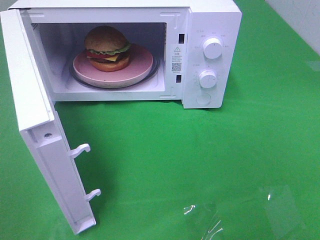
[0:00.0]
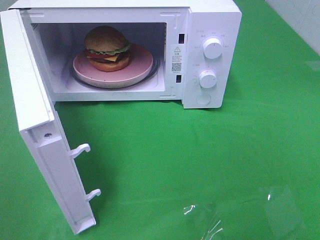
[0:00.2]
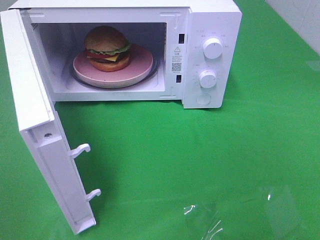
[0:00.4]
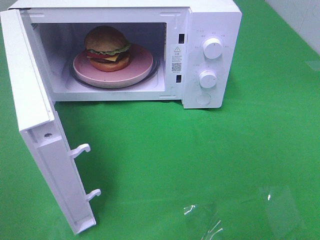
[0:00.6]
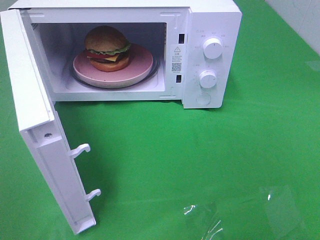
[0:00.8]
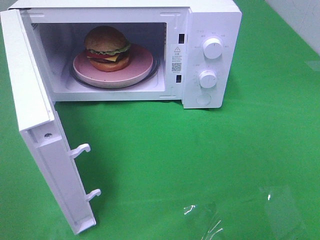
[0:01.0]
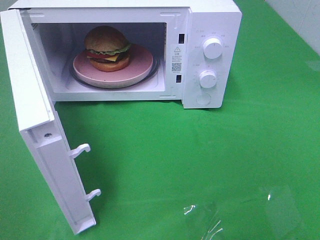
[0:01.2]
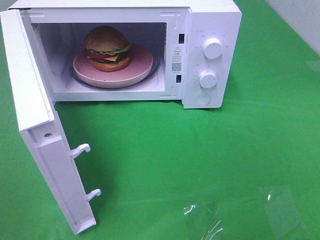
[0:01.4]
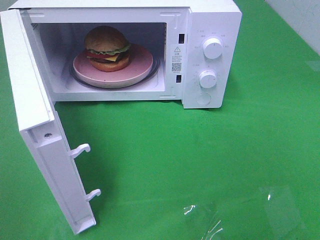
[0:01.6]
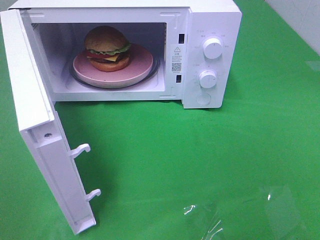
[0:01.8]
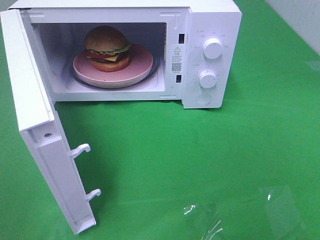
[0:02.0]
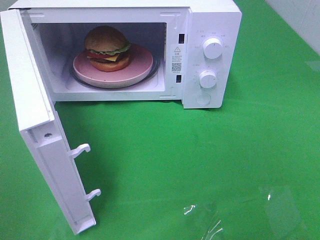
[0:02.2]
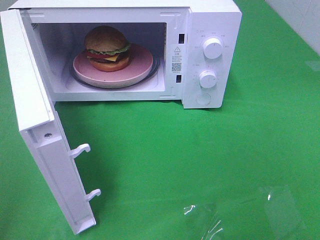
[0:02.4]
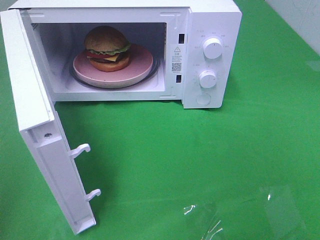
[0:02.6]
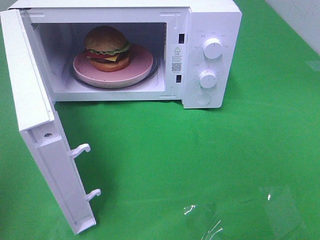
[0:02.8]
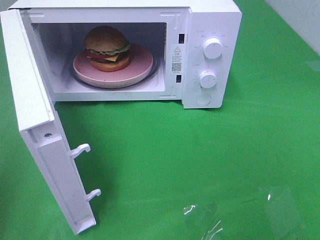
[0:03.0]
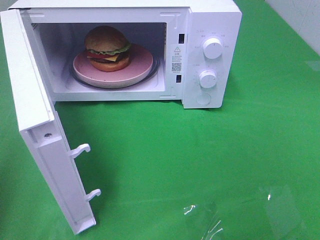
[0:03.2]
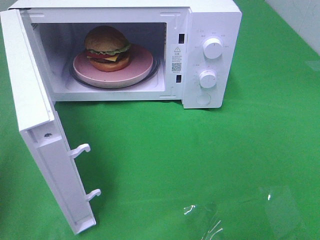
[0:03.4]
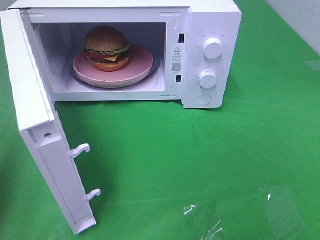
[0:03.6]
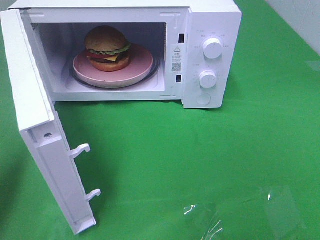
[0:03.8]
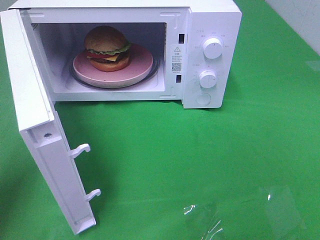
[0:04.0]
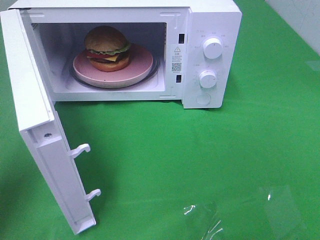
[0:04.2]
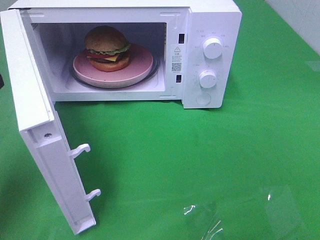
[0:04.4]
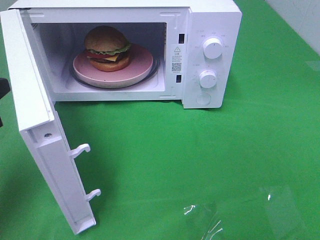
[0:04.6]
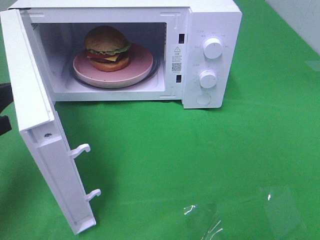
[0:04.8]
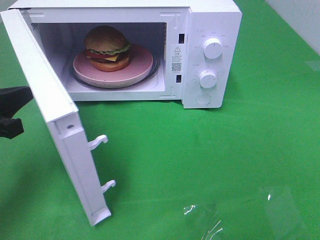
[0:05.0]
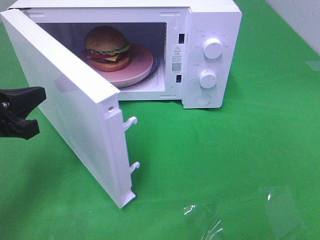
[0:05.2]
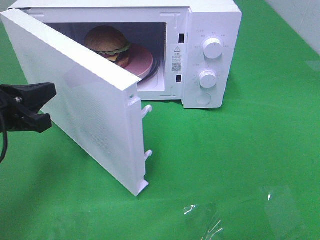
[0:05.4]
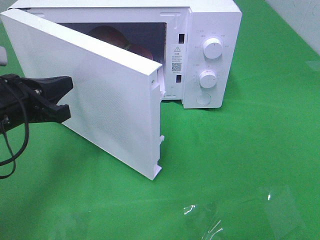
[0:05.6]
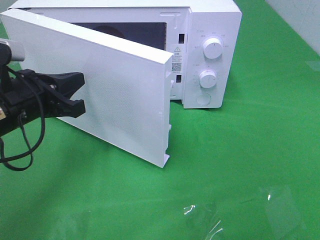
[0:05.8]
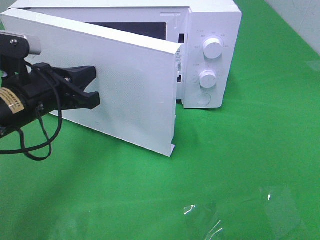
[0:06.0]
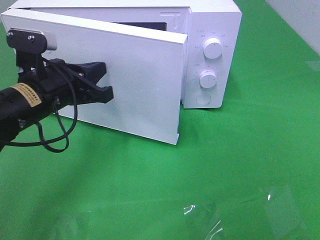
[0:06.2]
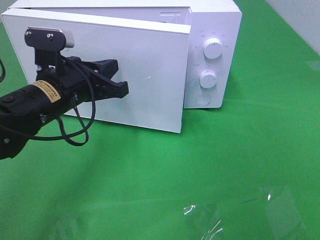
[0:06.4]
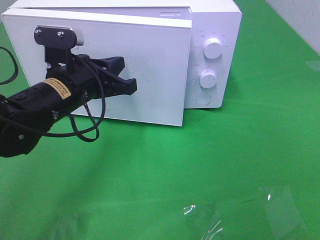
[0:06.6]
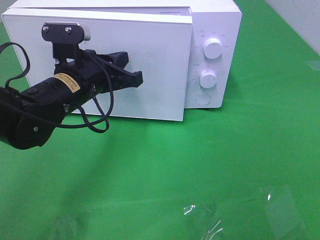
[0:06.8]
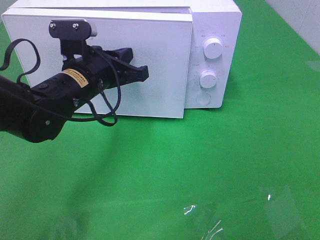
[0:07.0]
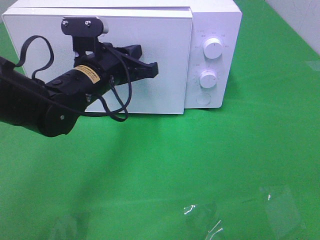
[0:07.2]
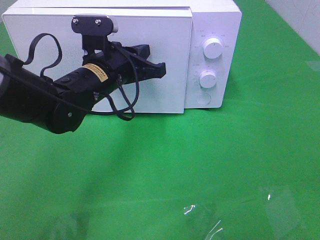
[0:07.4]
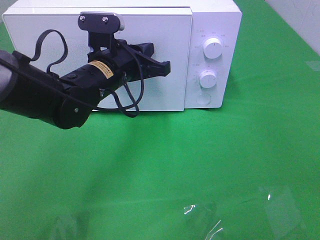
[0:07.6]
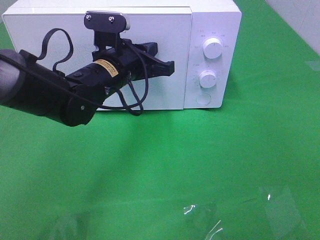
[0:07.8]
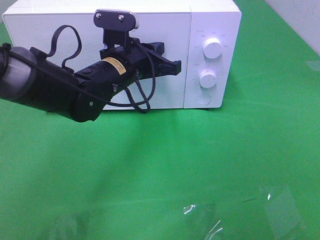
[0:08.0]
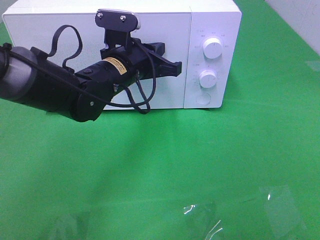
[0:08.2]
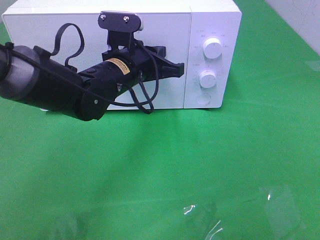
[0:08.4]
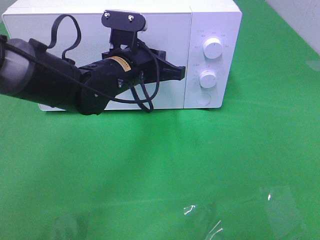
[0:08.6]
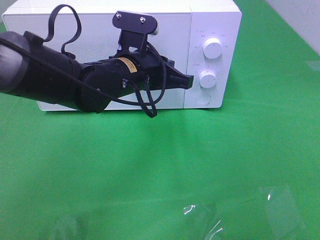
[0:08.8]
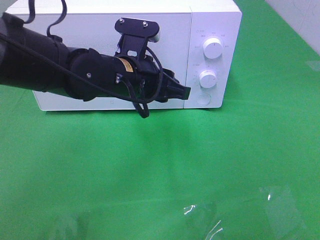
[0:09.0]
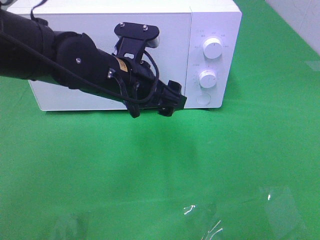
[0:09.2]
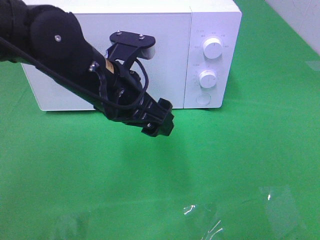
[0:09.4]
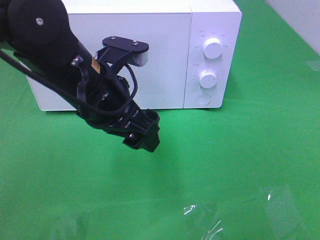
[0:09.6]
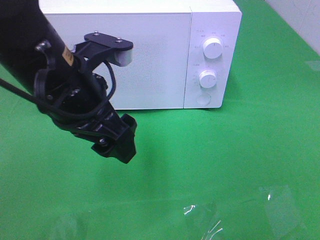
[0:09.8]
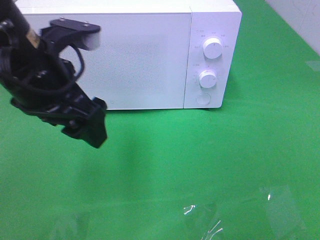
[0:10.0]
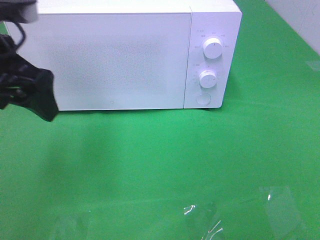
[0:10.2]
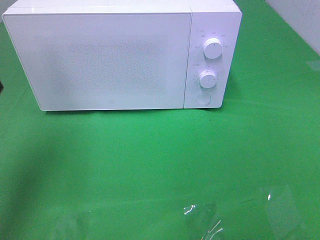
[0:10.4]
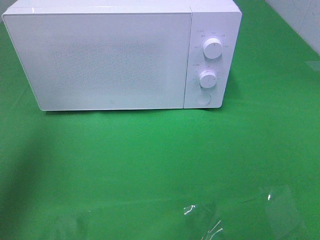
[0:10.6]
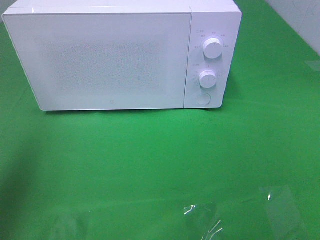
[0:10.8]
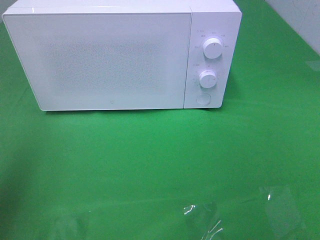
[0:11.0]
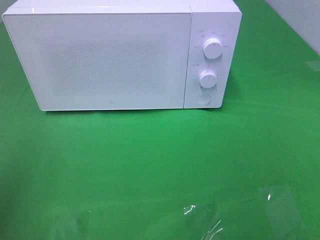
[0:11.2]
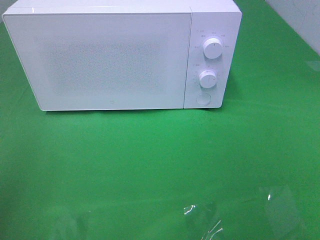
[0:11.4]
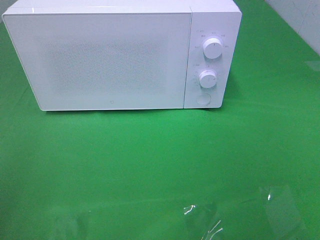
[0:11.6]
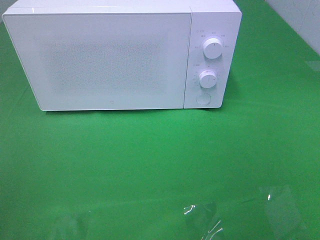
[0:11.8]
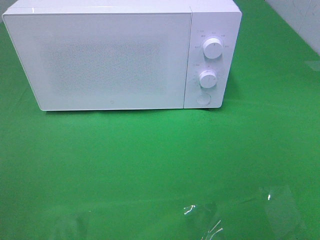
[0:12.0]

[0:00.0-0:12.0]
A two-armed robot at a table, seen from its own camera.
Task of the whole recording: Heat the burger.
Step, 0:00.0 to 0:09.0: Left hand: close the microwave door.
0:03.0 to 0:04.4: The left gripper goes about 15 cm forward and downward.
0:04.4 to 0:06.0: The left gripper heads to the right and forward, covering some 15 cm.
0:06.0 to 0:07.6: The left gripper heads to the right and forward, covering approximately 10 cm.
0:07.6 to 0:09.0: The left gripper opens up.
0:09.0 to 0:10.4: The left gripper goes some 25 cm to the left and upward.
0:10.4 to 0:12.0: The left gripper goes some 25 cm backward.

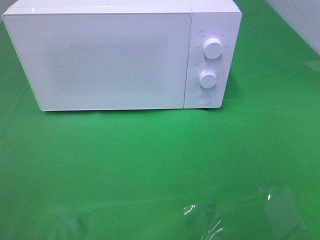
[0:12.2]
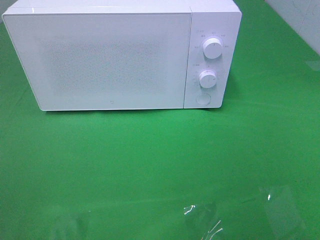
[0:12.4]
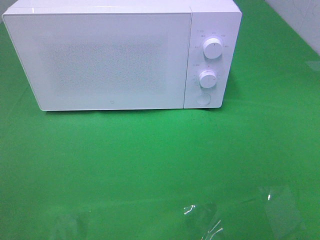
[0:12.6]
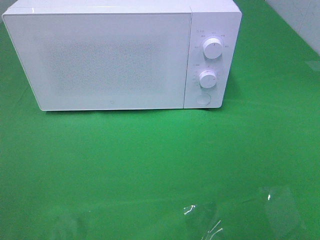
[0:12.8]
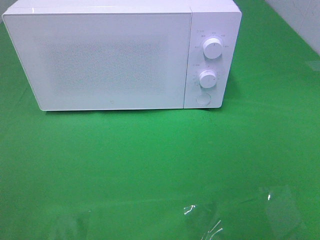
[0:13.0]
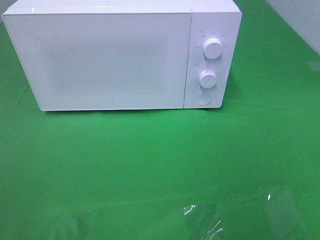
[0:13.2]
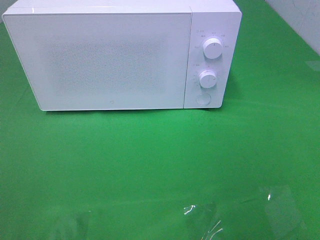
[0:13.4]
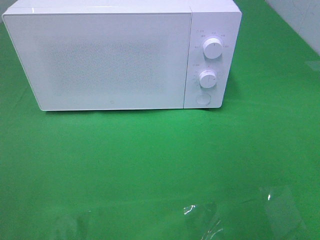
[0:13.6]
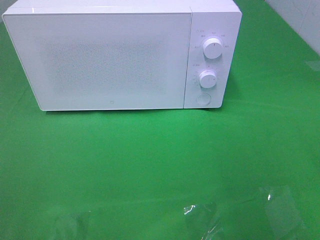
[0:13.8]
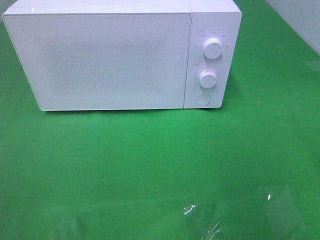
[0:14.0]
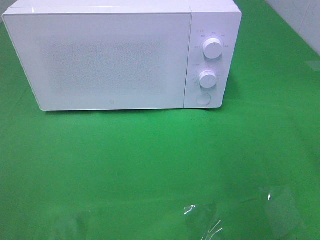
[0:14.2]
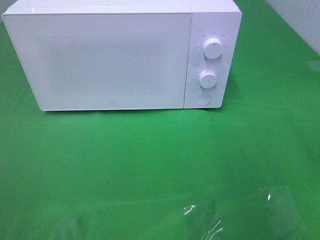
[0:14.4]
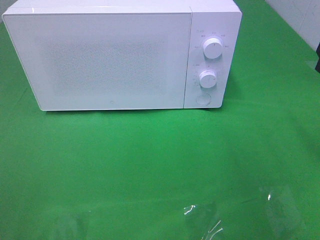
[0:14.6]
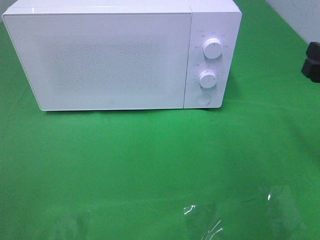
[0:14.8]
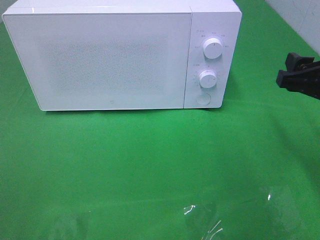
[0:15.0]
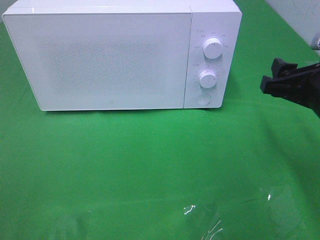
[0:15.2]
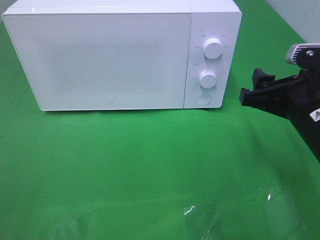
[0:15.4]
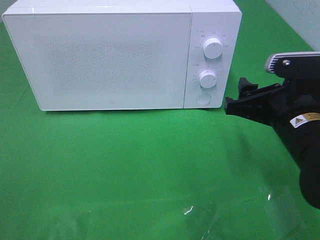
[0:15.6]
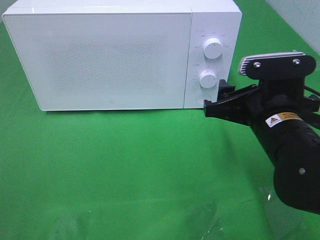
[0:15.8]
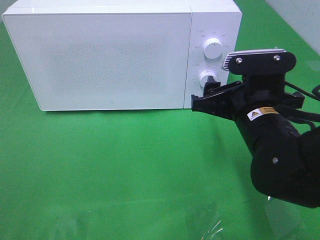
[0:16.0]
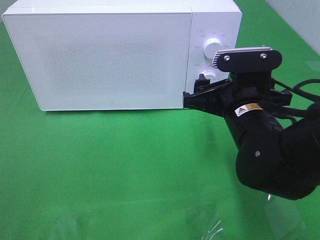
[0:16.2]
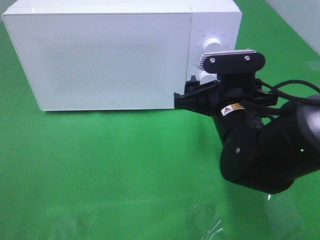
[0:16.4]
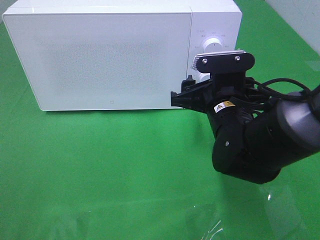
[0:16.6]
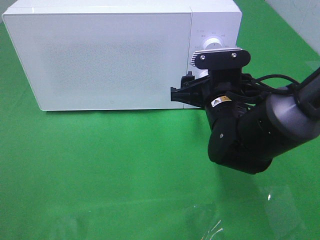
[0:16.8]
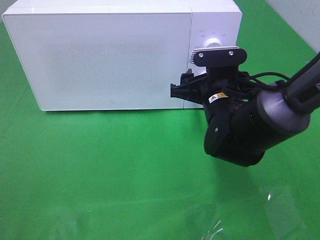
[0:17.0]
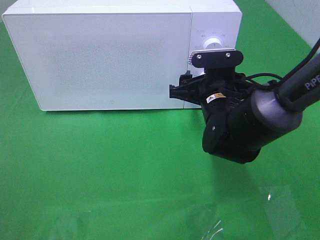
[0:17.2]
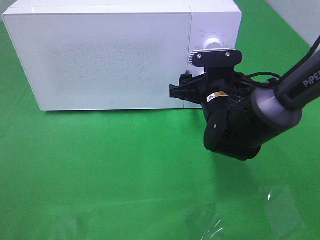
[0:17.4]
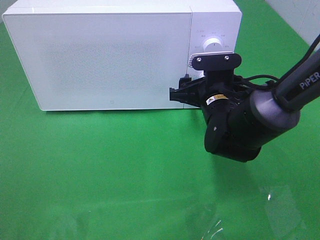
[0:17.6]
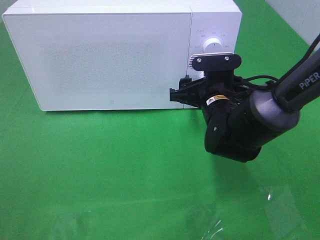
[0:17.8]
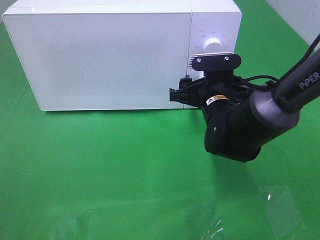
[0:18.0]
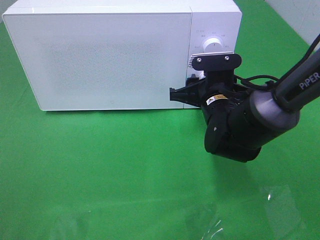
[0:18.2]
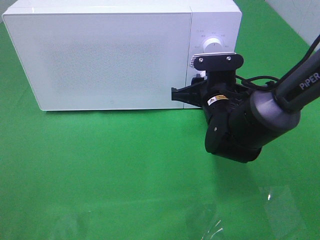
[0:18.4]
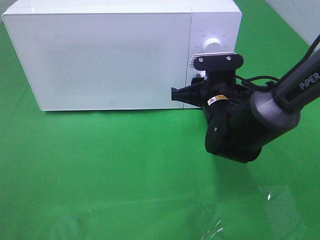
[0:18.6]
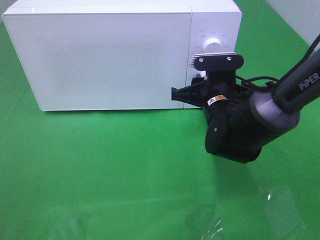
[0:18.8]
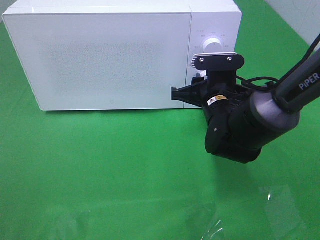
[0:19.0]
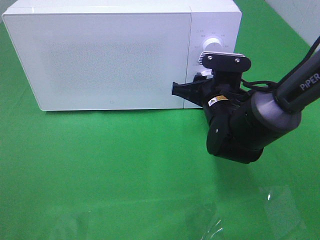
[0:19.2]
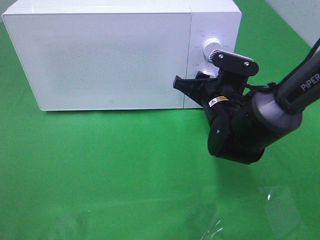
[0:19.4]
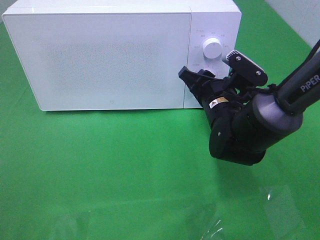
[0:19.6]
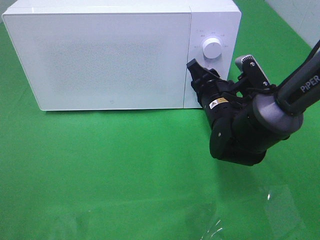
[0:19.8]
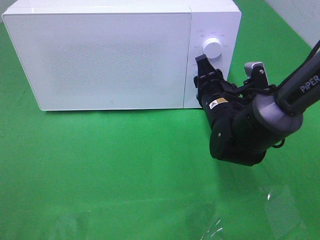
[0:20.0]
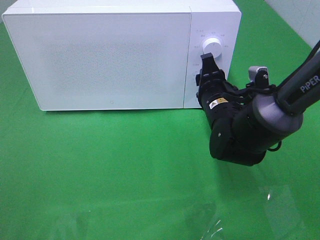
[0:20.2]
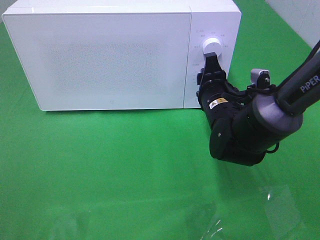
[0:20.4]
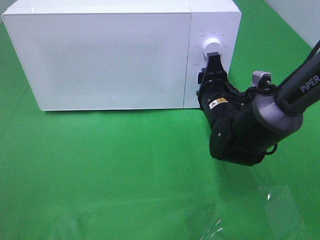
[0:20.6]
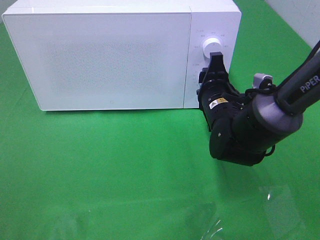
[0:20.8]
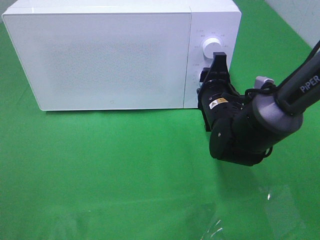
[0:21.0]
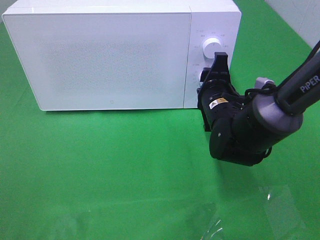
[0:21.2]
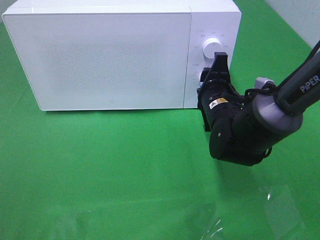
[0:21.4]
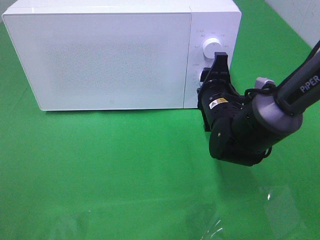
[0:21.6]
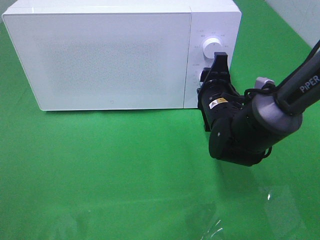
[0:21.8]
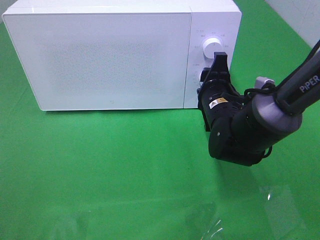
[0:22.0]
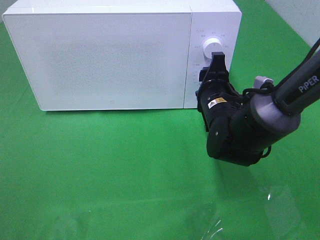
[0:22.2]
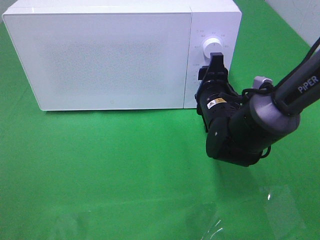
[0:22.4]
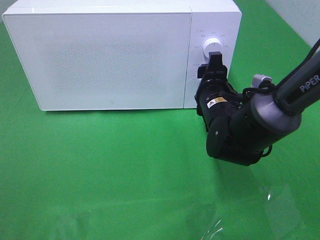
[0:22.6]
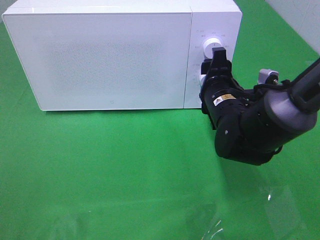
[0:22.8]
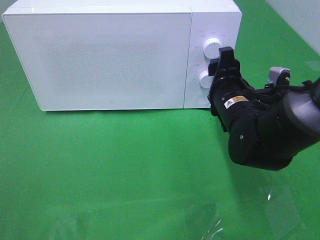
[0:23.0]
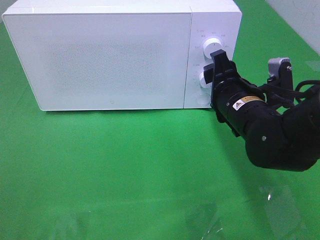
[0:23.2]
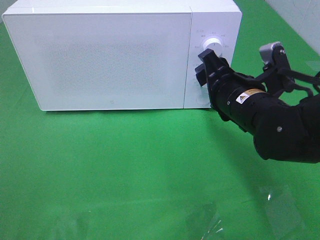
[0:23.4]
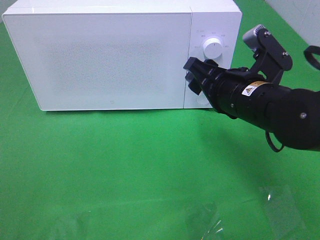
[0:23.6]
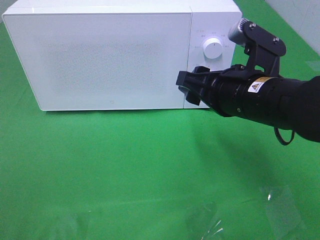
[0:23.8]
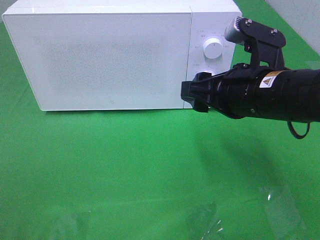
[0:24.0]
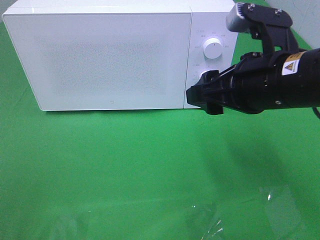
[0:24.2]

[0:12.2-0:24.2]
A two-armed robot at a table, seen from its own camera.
Task of the whole recording: Heat the burger.
Step, 0:12.2 to 0:23.0: Right hand: twist timer button.
0:13.8 to 0:15.2: The right gripper heads forward, downward and to the left, covering some 15 cm.
0:15.2 to 0:16.6: The right gripper shifts roughly 15 cm to the left and downward.
0:16.6 to 0:18.2: The right gripper changes place by some 5 cm.
0:21.2 to 0:22.6: The grippers move only a little.
0:22.6 to 0:24.2: The right gripper travels upward and backward by some 15 cm.
